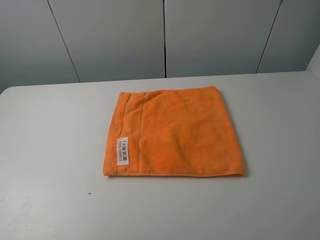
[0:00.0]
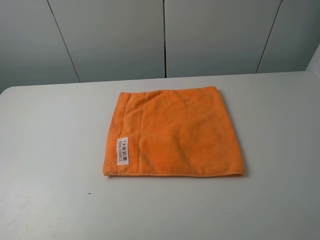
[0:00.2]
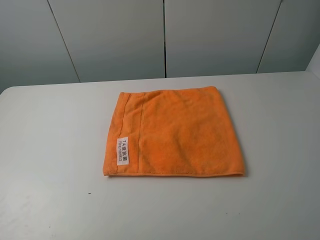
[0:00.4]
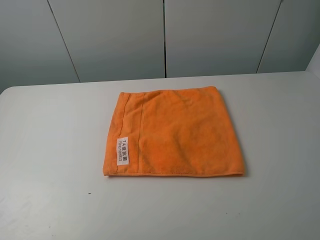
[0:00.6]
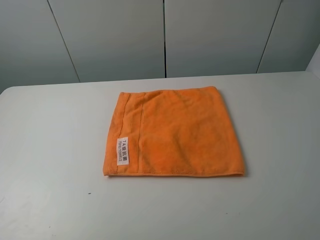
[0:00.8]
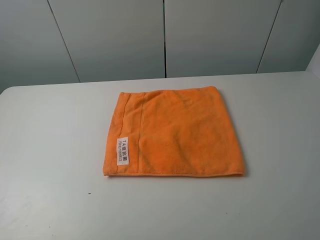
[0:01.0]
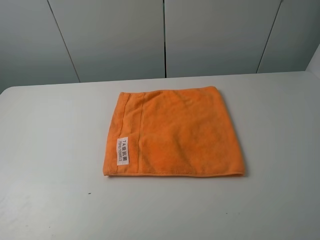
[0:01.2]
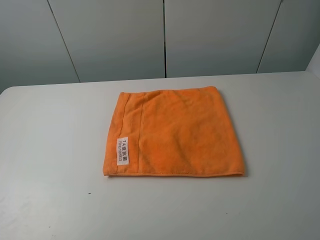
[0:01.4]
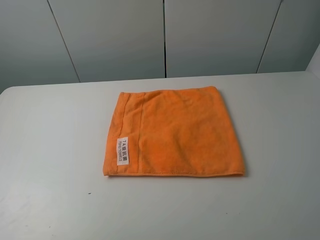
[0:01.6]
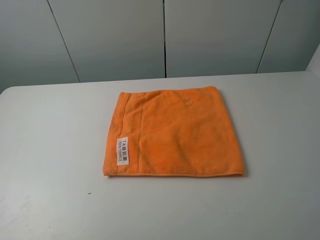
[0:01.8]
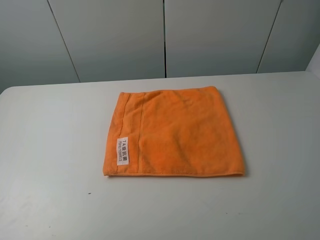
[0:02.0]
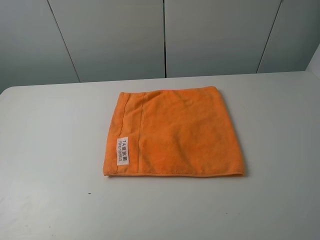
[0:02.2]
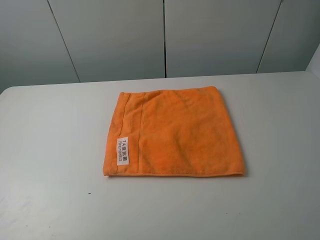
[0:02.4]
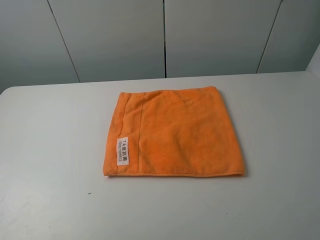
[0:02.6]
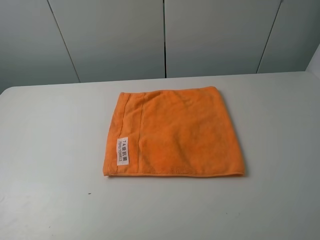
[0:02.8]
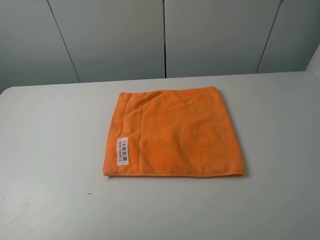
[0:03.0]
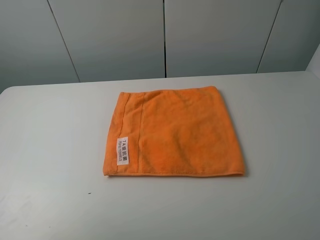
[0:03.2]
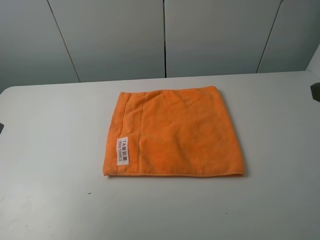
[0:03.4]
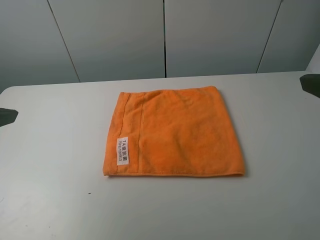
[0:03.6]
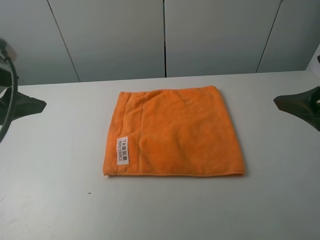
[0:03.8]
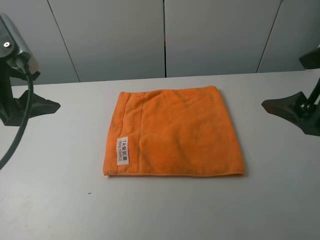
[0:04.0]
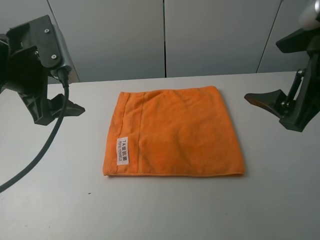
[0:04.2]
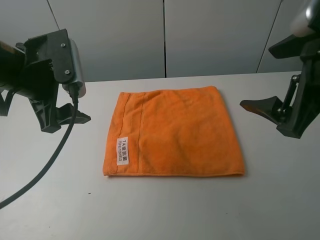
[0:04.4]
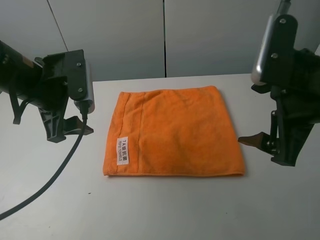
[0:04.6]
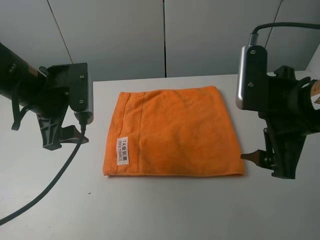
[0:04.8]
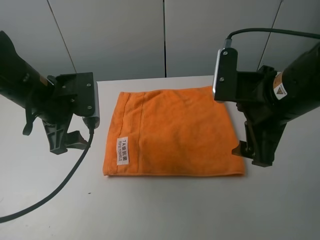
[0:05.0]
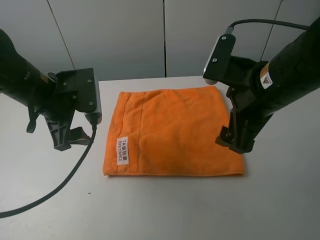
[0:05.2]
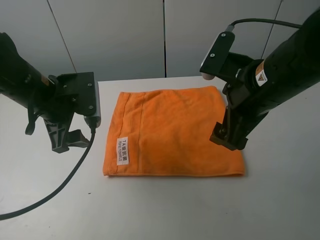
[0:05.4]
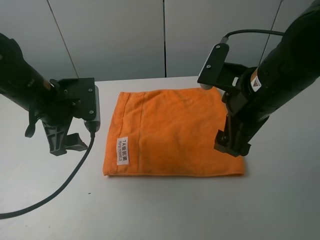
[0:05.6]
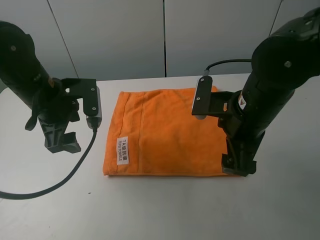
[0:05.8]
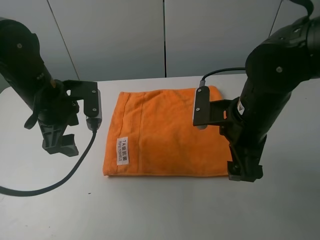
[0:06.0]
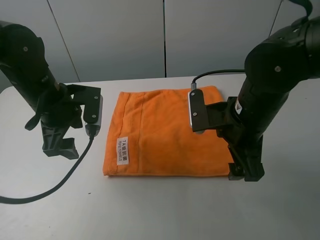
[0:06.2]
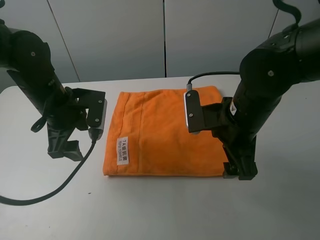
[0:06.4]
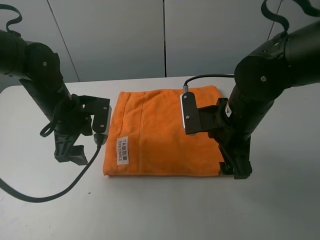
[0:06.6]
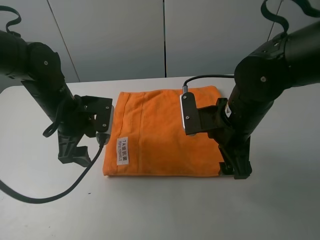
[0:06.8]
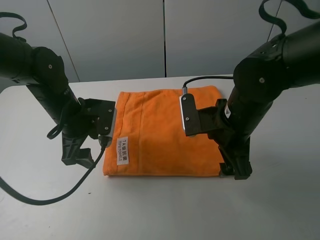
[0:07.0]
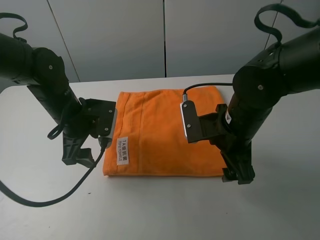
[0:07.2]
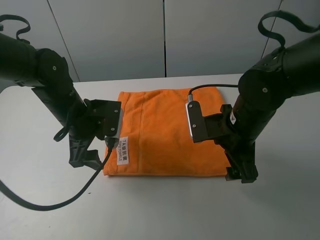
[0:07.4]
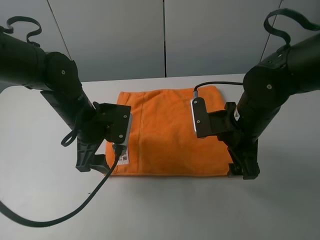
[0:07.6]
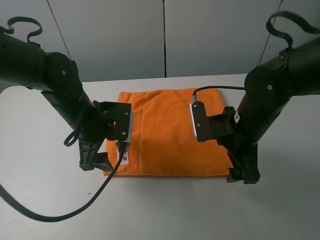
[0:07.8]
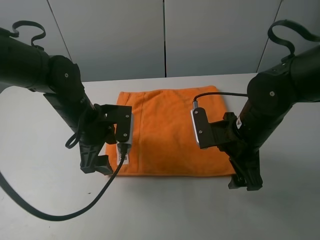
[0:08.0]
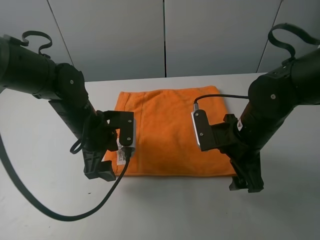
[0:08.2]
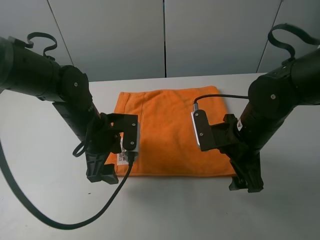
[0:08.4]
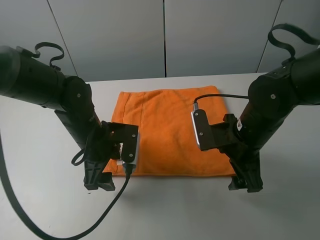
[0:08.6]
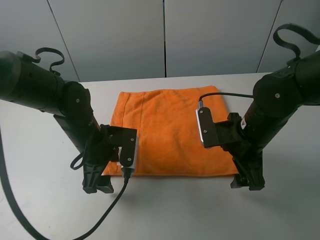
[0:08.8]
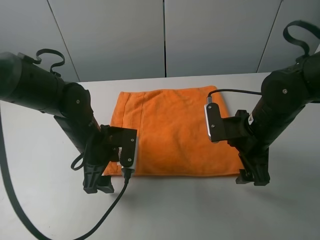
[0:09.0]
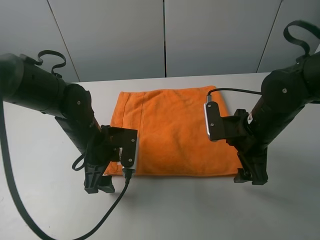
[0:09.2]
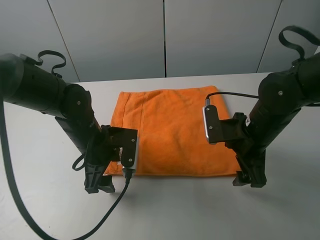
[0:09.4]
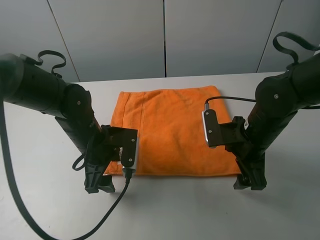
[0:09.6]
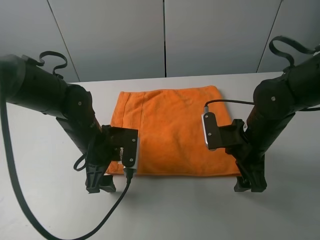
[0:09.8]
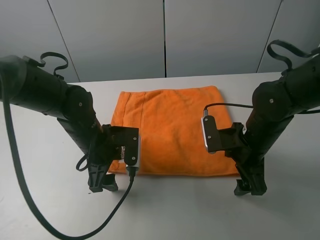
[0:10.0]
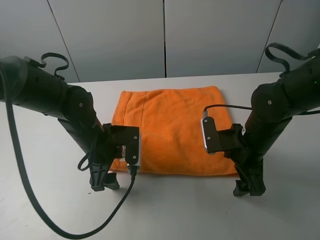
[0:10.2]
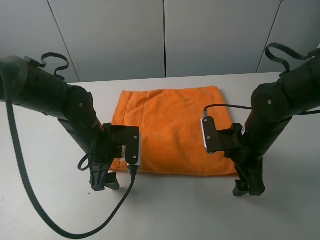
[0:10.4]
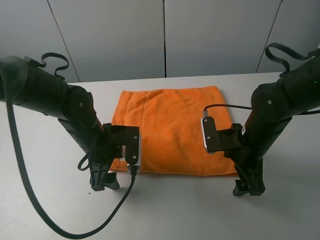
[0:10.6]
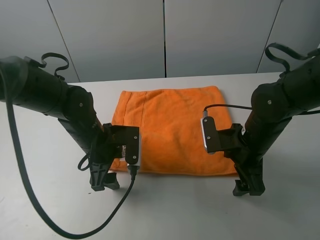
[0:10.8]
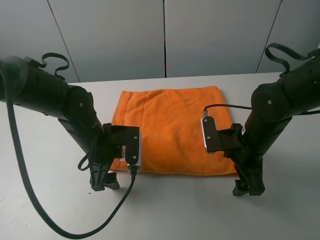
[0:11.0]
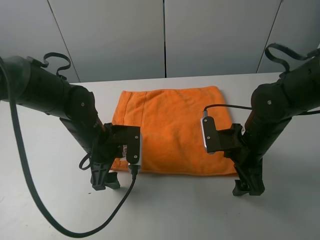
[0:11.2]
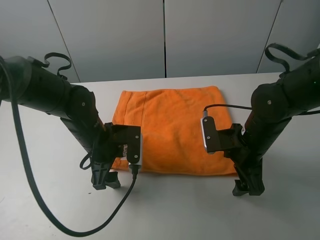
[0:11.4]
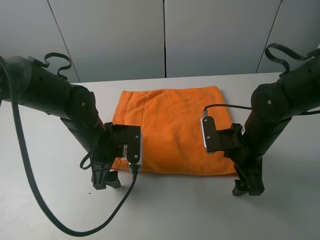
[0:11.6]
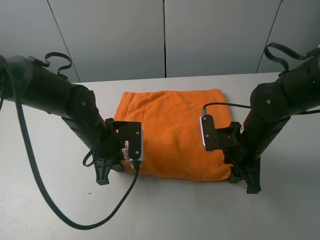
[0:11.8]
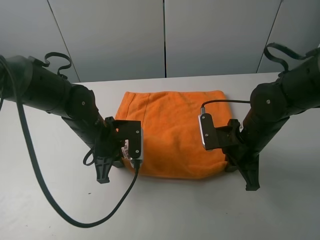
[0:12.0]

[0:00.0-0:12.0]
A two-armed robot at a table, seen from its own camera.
Task of the whole recording: fold the towels on the table.
Step, 0:00.0 to 0:11.8: Grasp the orange towel with the right gripper.
0:00.0 to 0:01.6: Neither gripper changes place.
0:03.0 to 0:04.4: The right gripper shifts some 15 cm forward and to the left; the left gripper heads forward and to the right, covering approximately 25 cm.
0:04.4 to 0:06.0: The right gripper shifts approximately 15 cm downward, to the left and forward, while the left gripper heads downward, covering approximately 5 cm.
0:06.0 to 0:07.6: The left gripper heads to the right, covering about 5 cm.
0:09.0 to 0:10.4: The grippers make only small movements.
0:10.4 to 0:12.0: The right gripper closes, while the left gripper closes up.

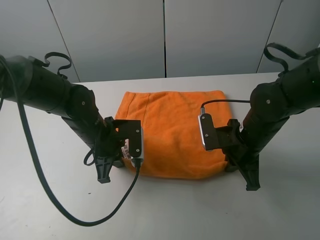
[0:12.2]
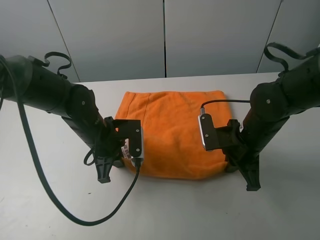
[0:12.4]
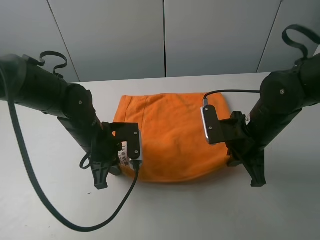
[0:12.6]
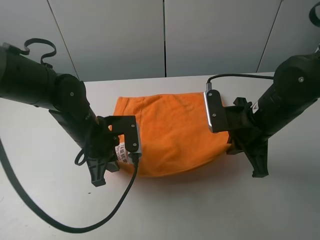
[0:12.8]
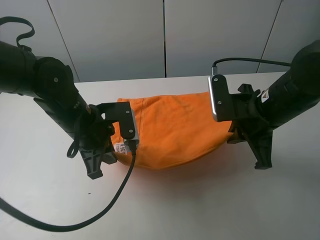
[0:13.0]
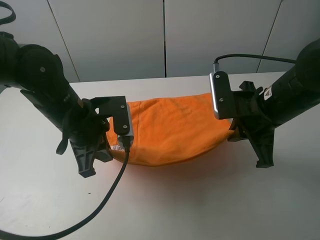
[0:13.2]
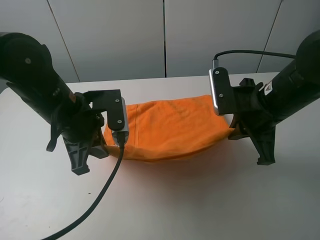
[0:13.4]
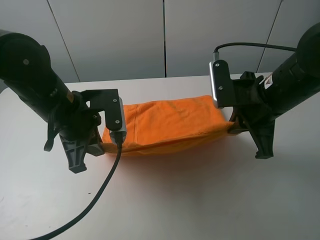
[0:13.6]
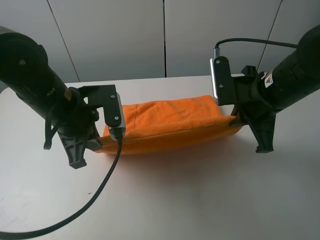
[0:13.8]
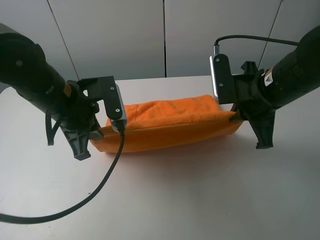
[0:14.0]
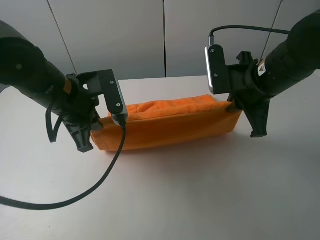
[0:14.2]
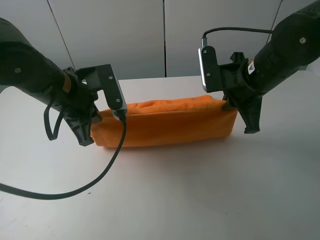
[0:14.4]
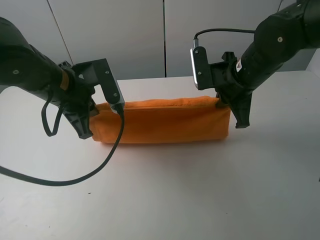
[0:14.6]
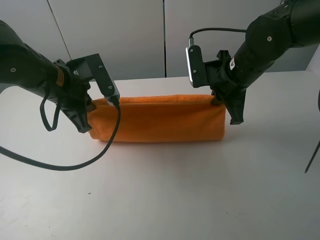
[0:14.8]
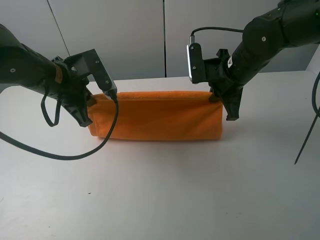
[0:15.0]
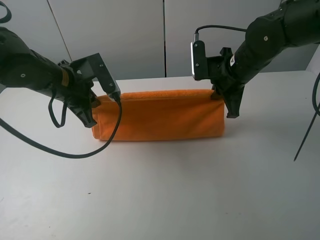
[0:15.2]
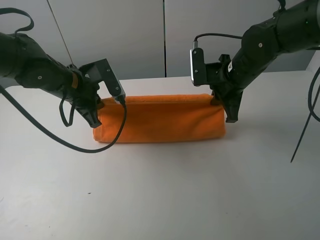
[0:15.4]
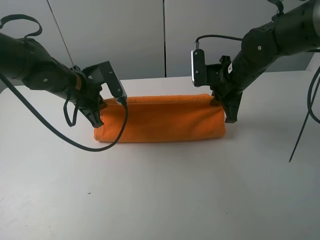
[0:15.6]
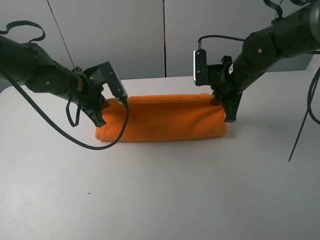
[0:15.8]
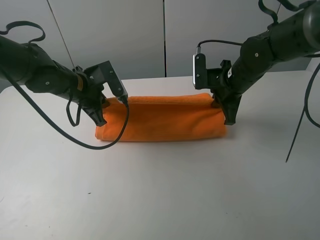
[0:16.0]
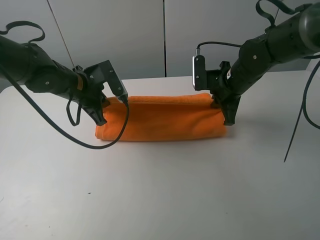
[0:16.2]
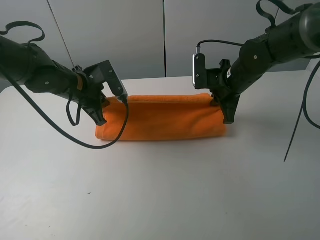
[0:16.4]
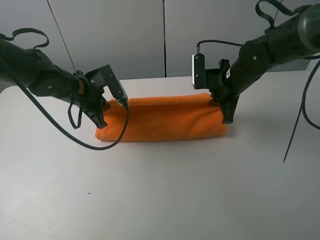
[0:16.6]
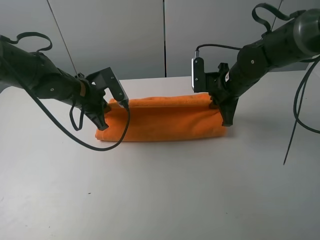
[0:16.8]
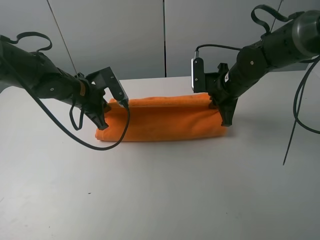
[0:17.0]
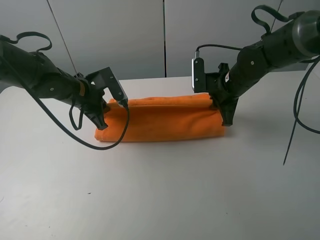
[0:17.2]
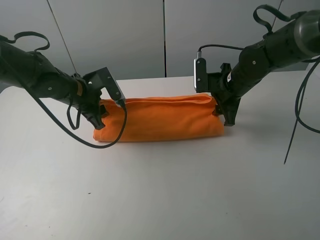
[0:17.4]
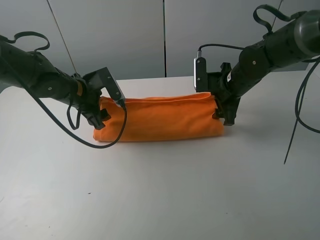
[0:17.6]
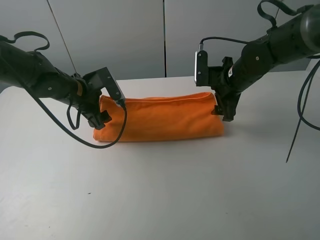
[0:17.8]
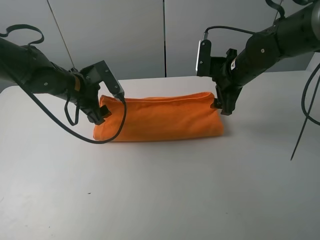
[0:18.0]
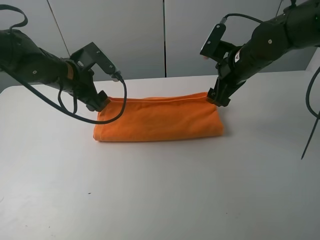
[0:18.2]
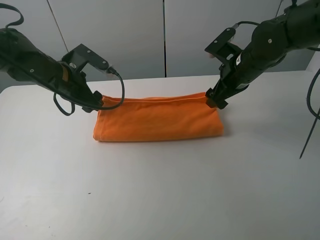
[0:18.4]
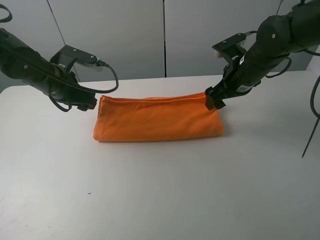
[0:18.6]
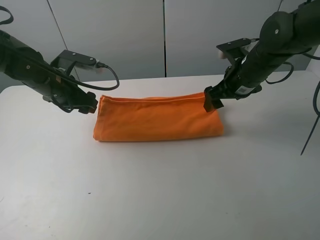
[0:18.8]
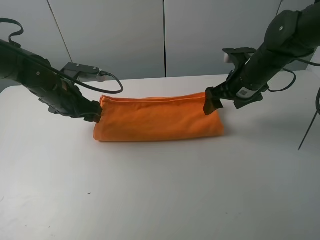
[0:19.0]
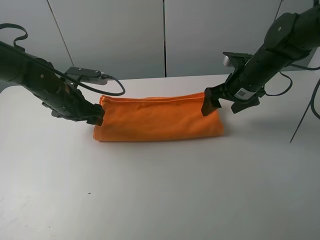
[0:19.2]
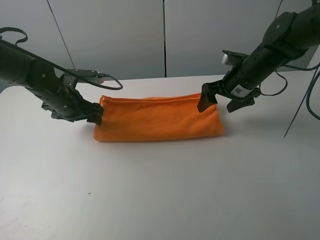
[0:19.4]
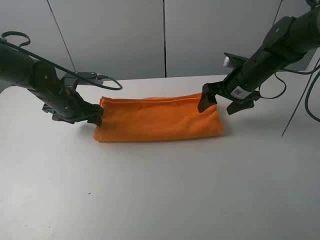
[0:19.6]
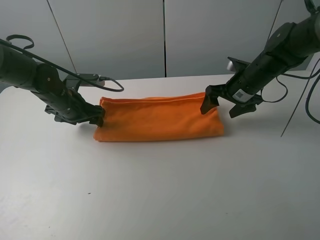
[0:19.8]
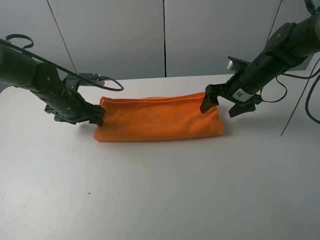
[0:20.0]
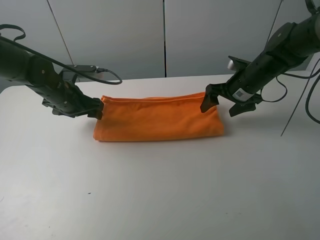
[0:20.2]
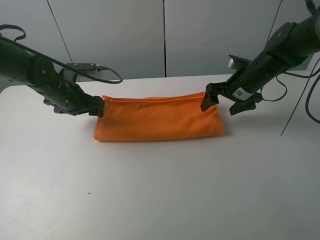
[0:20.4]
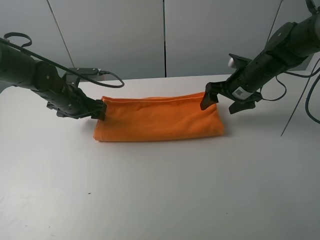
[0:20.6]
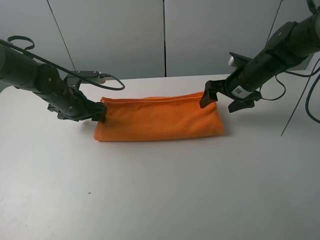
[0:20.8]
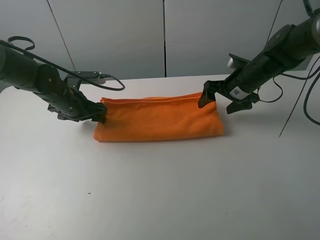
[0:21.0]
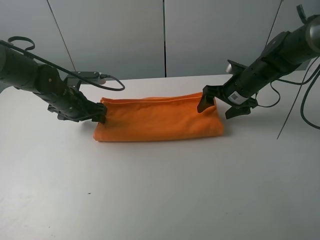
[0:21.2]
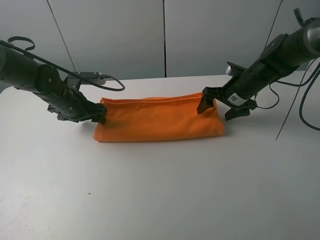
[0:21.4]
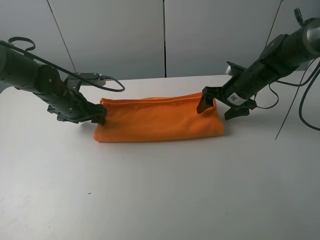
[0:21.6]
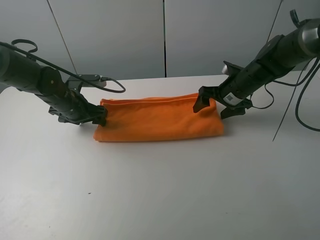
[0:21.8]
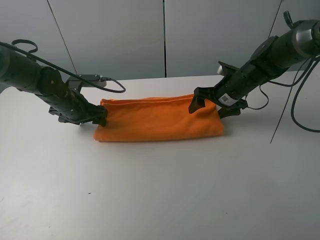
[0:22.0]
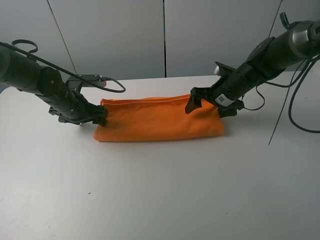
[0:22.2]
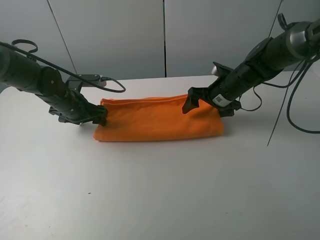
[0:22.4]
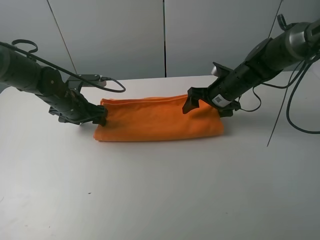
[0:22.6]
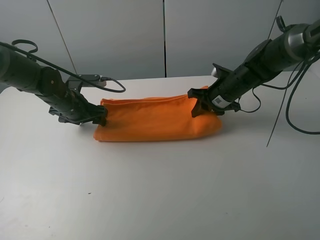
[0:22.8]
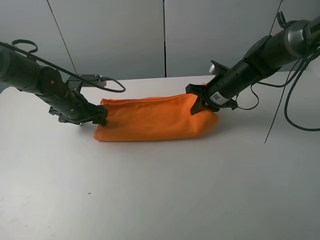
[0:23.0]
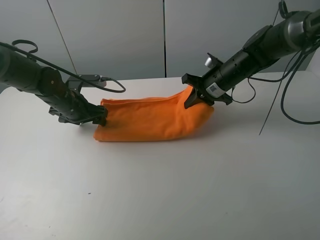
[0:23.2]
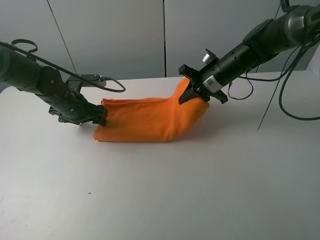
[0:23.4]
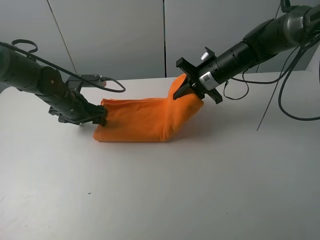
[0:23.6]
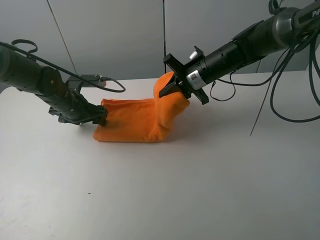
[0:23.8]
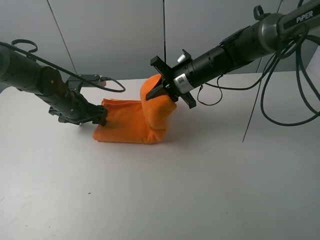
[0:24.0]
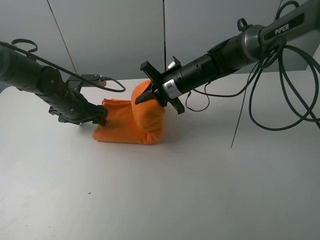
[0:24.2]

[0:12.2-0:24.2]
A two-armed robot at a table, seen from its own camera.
Task of the whole recording: fold the towels on the table.
Step, 0:12.2 to 0:17.6: Fold the orange towel upwards with the right gripper.
Step, 0:17.8 to 0:20.8: Press on the orange towel with the left gripper.
0:12.2 to 0:13.8: Both grippers move upward, about 10 cm.
0:13.8 to 0:15.2: Both grippers move forward, approximately 10 cm.
0:15.2 to 0:16.6: The right gripper ends up roughly 5 cm from where it was, while the left gripper changes place by about 5 cm.
0:16.6 to 0:18.2: The left gripper opens up, while the right gripper opens up.
0:18.2 to 0:19.8: The left gripper is displaced downward by about 5 cm; the right gripper shifts by approximately 5 cm.
0:19.8 to 0:22.6: The grippers move only a little.
0:22.6 to 0:24.2: The right gripper heads to the left, covering some 10 cm, and closes its fingers.
